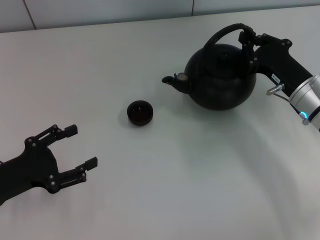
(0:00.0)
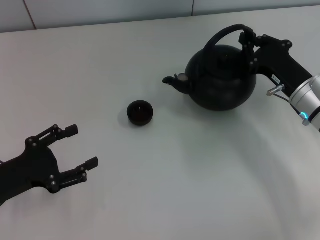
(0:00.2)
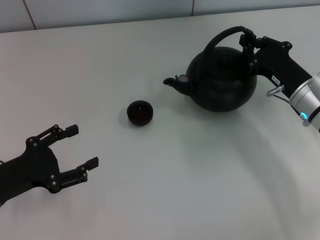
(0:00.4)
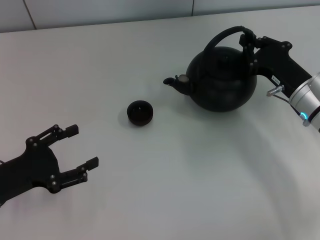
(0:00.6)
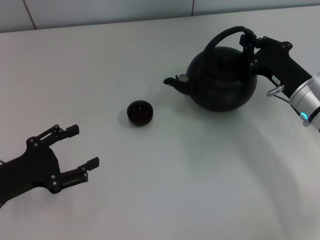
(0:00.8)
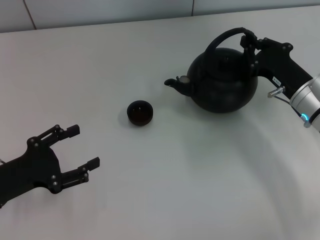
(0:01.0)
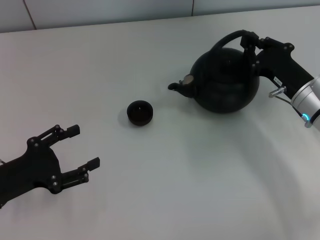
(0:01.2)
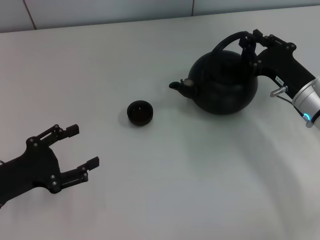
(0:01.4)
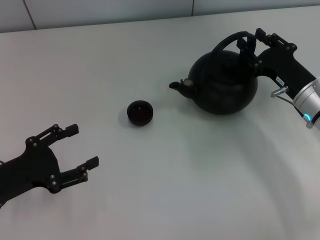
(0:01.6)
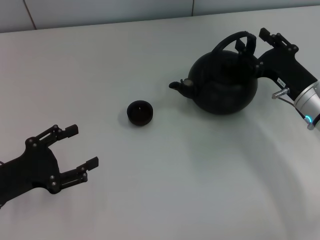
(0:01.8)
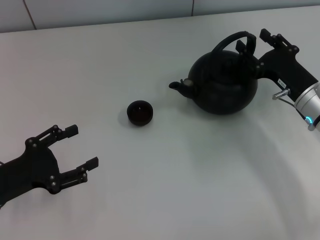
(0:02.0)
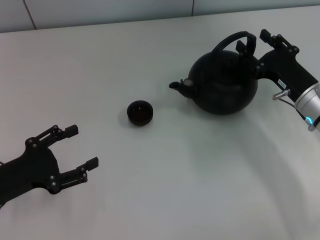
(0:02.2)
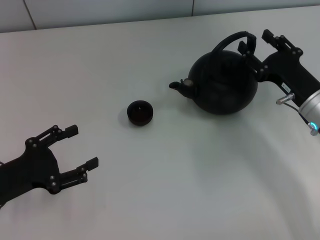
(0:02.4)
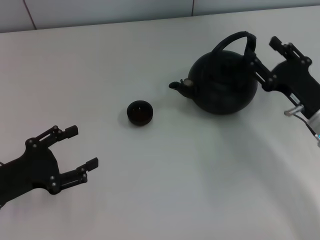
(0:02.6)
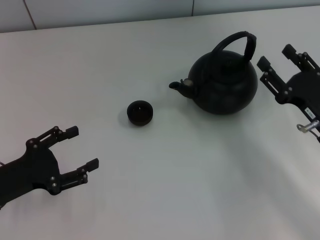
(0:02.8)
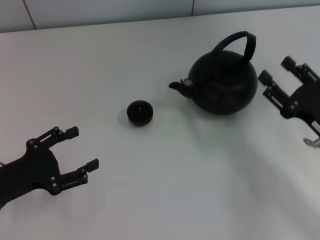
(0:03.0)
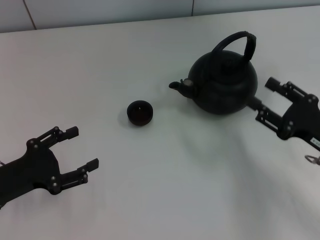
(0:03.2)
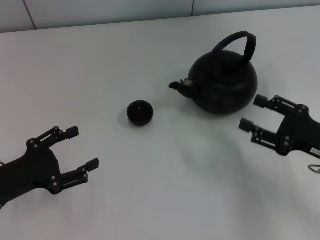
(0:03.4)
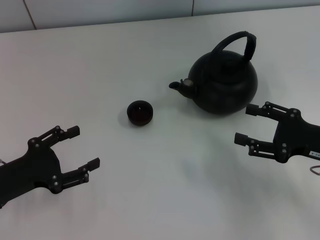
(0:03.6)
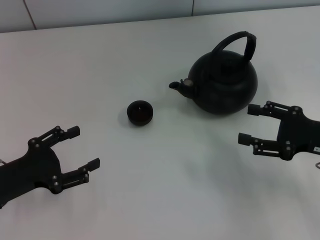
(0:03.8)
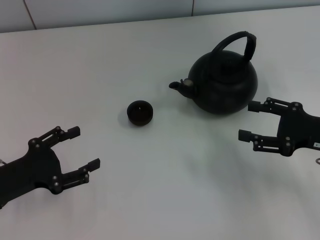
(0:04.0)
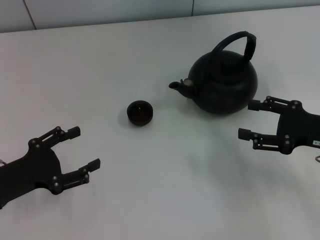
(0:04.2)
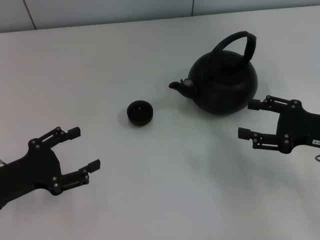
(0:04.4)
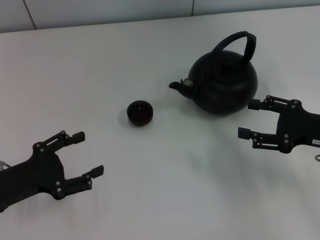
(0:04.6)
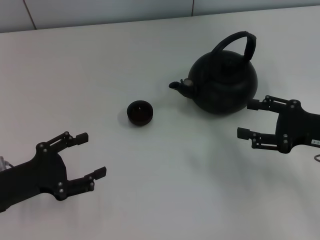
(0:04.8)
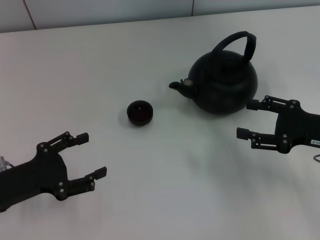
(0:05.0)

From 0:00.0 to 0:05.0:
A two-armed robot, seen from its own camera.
Task of the whole recording: Grasp the handle of the teapot with one hand and pour tea into the teacup.
Step, from 0:00.0 to 0:02.8: Put down the teapot with the right gripper.
From 0:00.0 to 0:01.6: The right gripper opens.
From 0:01.6 to 0:03.4: The right gripper is displaced backward by approximately 10 cm, and opens its fingers.
From 0:03.4 to 0:05.0: There are only small adjustments of the grippers.
